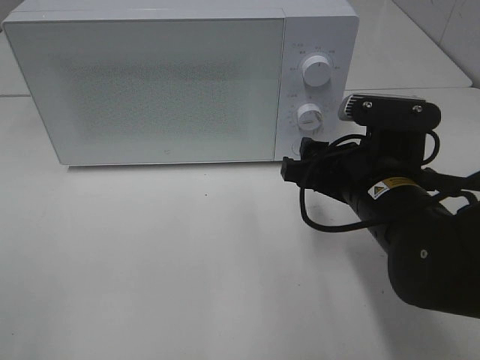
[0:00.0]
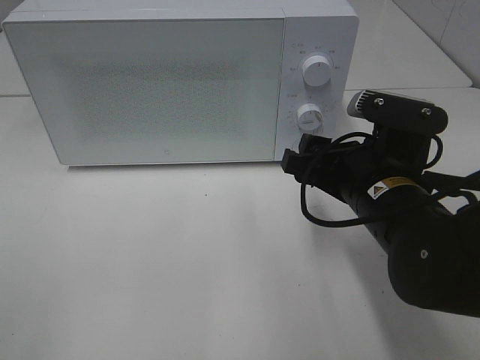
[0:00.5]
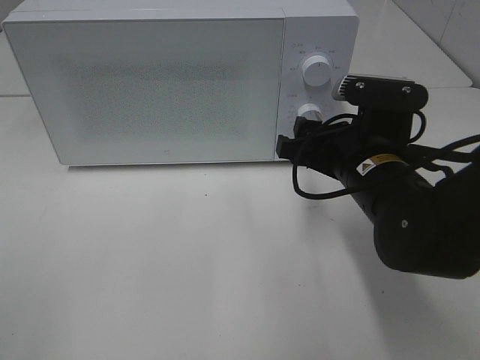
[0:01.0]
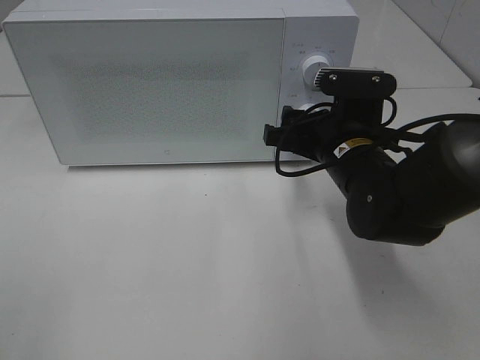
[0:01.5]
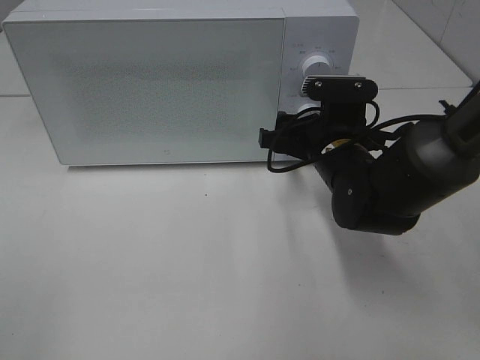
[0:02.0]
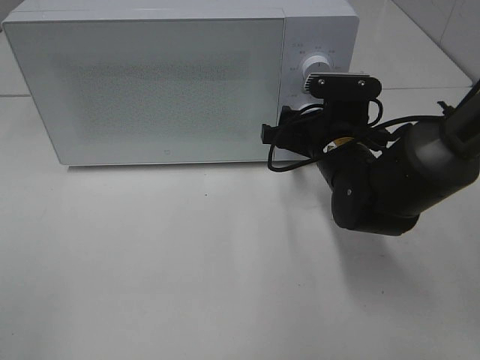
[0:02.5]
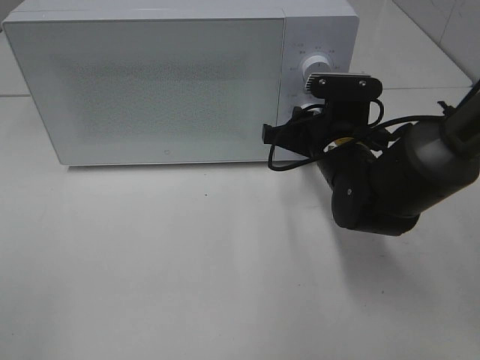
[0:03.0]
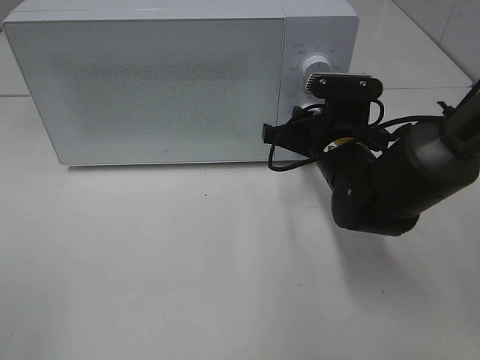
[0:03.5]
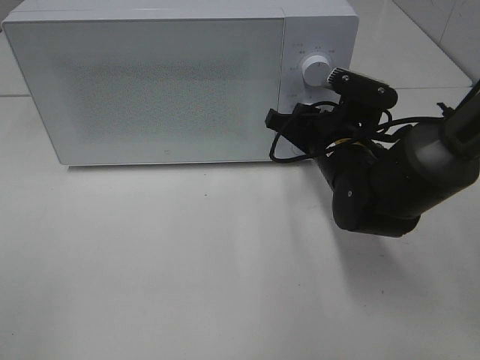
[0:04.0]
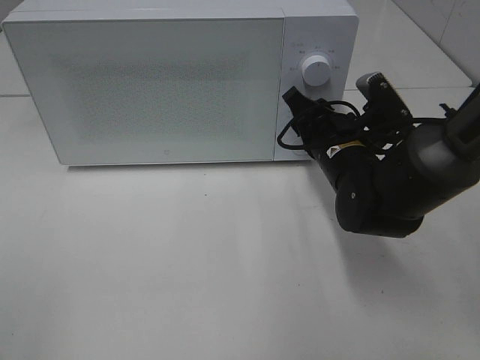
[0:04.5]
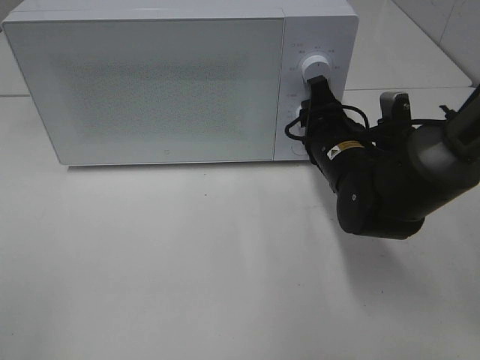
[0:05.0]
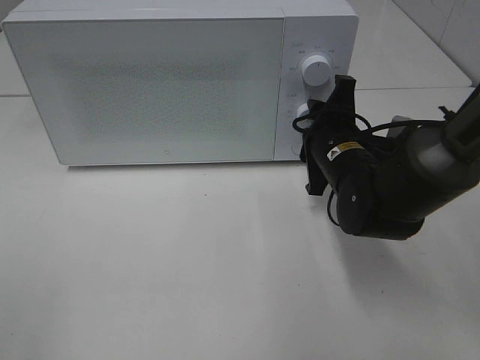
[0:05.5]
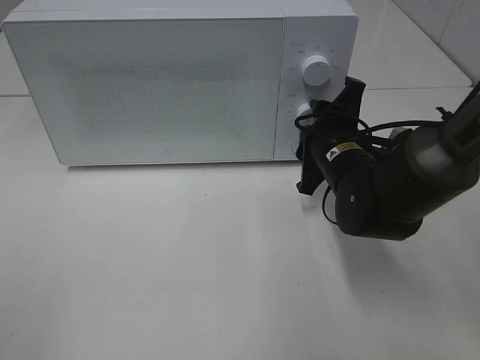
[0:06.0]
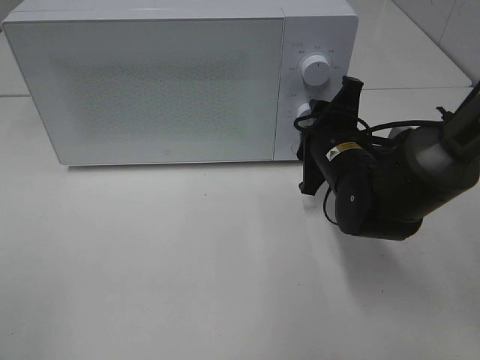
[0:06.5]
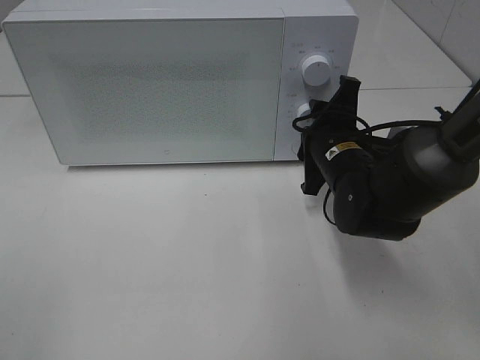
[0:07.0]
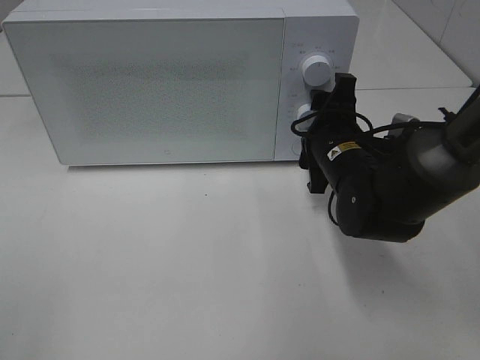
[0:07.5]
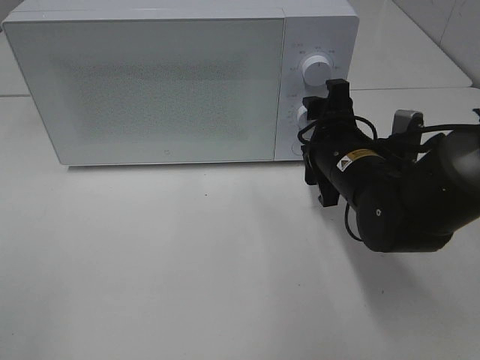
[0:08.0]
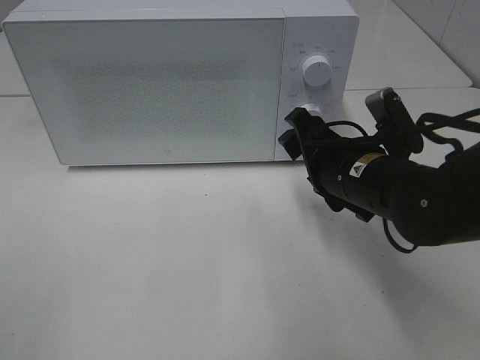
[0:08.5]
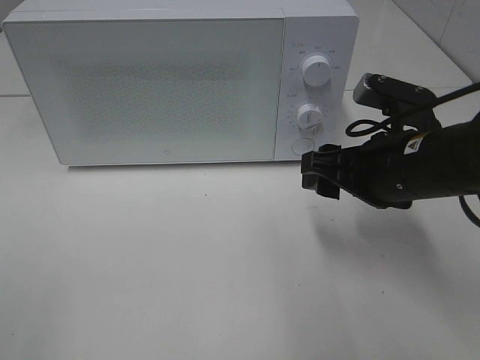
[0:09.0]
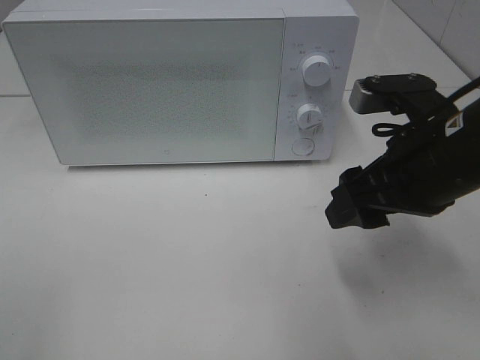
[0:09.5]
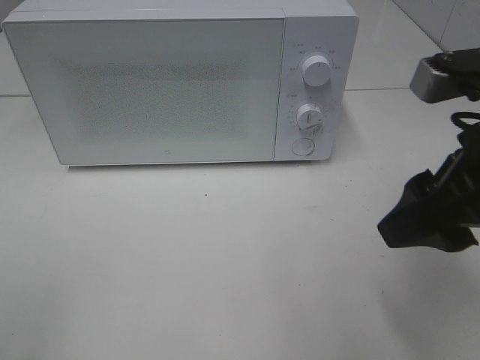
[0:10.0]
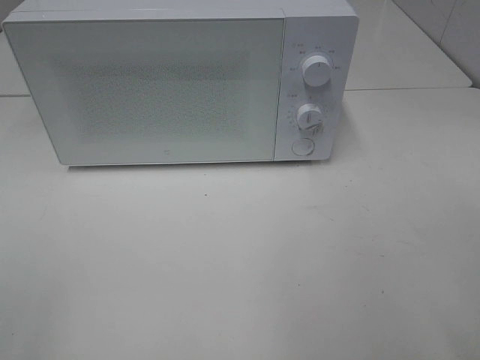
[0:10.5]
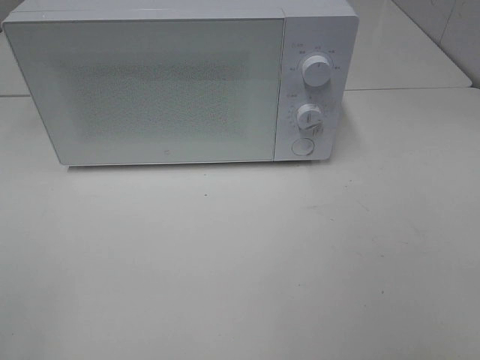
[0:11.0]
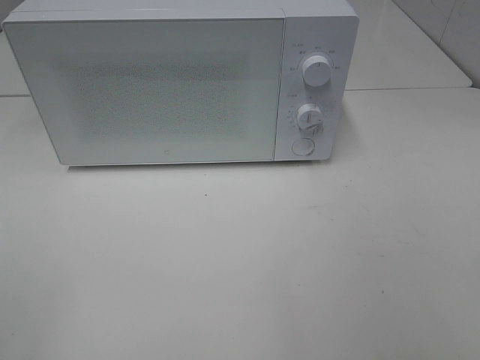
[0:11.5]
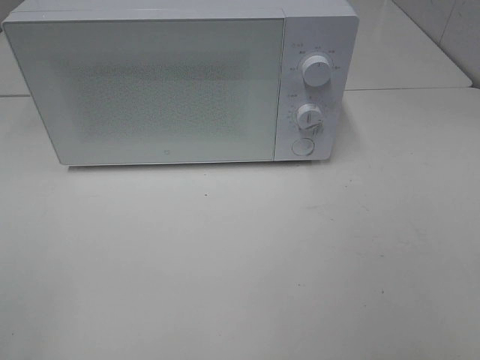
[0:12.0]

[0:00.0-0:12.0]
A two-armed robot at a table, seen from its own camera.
Task of the whole recording: Heat Sandwich.
Step, 0.0 to 8.0 s: Right hand: twist timer button.
0.0 to 2.0 s: The right gripper heads forward, covering approximately 10 cm.
2.0 to 4.0 s: The grippers stay close to where they were, moving slightly.
8.0 to 10.0 s: The right gripper heads upward, backward and to the right, covering some 20 cm.
10.0 to 12.0 s: The right gripper goes approximately 20 cm backward and to the right.

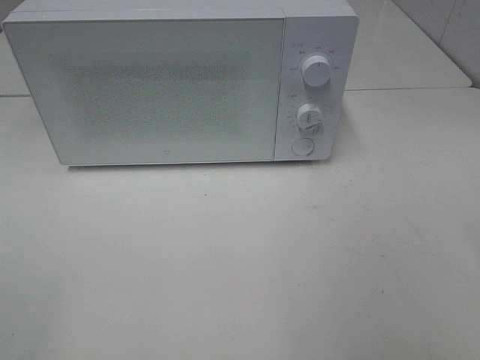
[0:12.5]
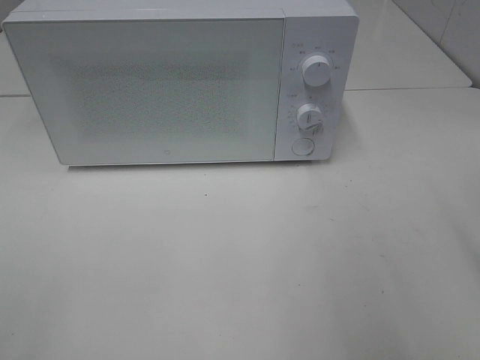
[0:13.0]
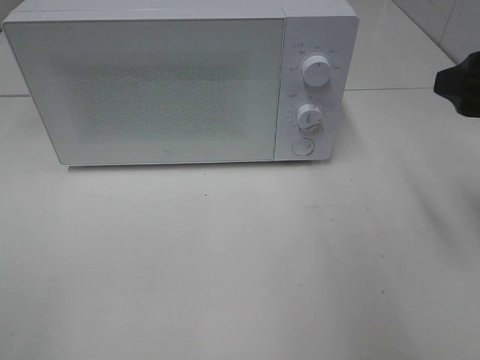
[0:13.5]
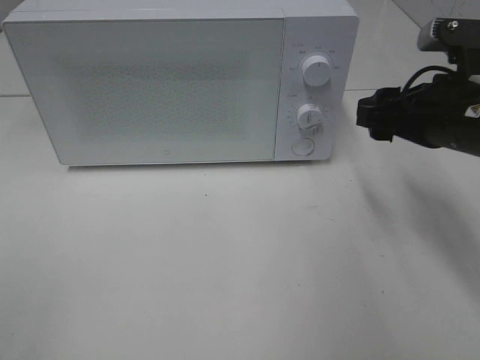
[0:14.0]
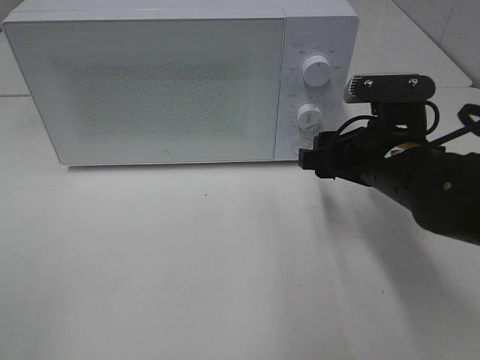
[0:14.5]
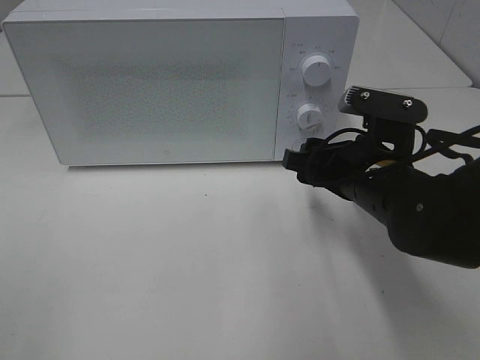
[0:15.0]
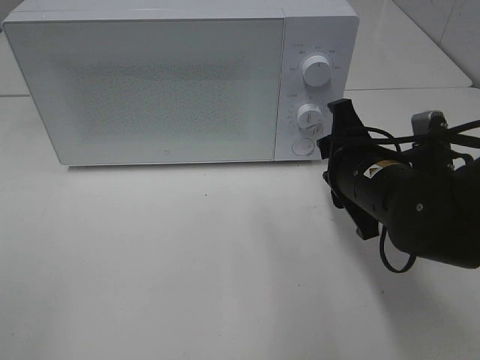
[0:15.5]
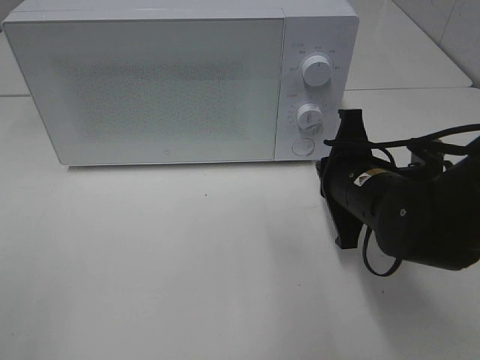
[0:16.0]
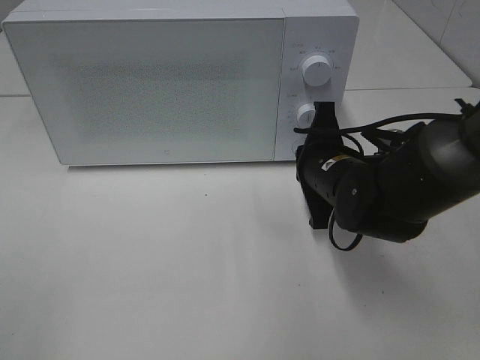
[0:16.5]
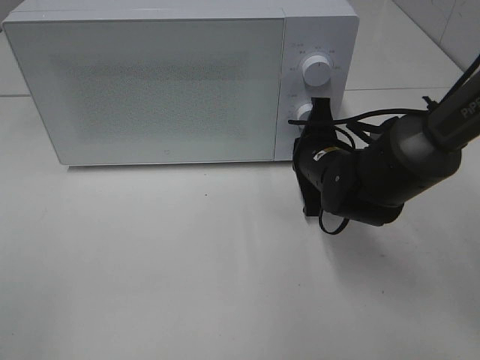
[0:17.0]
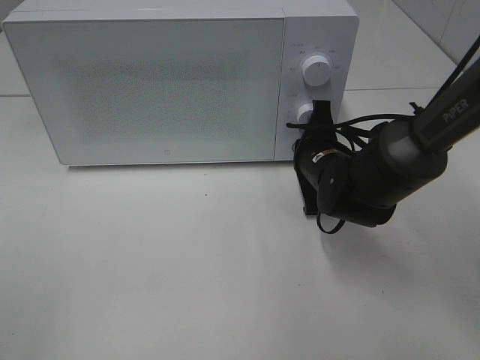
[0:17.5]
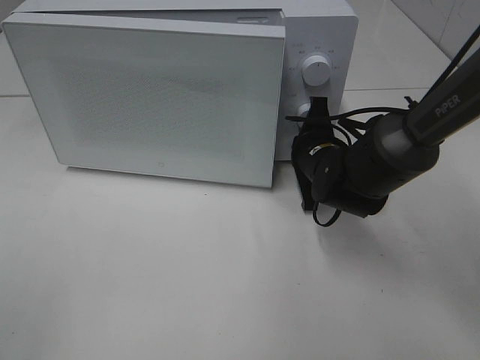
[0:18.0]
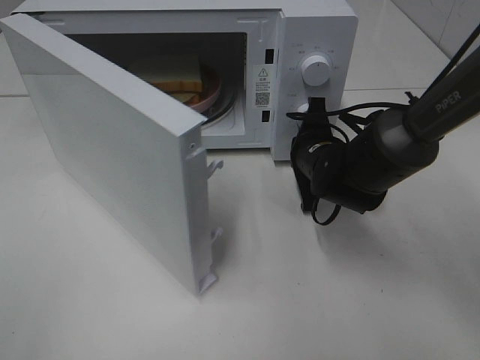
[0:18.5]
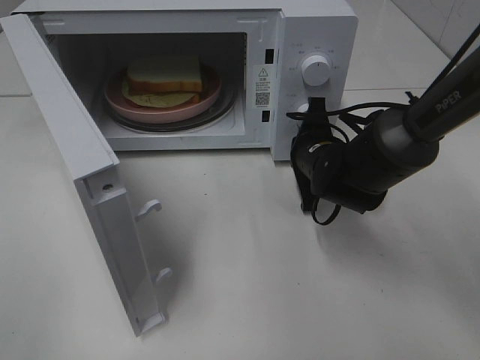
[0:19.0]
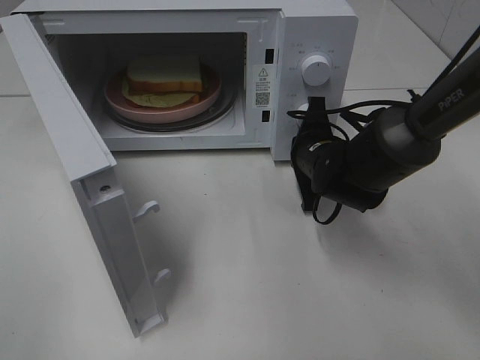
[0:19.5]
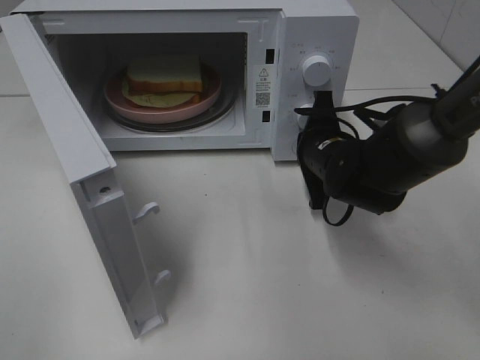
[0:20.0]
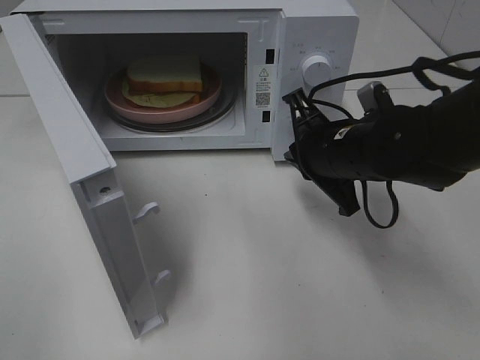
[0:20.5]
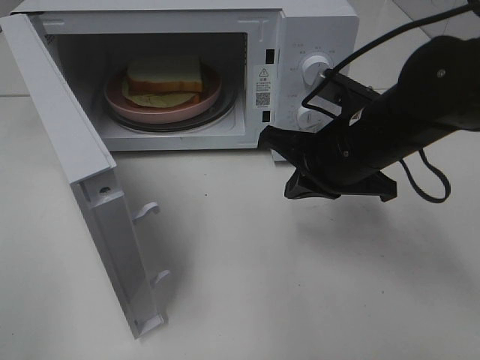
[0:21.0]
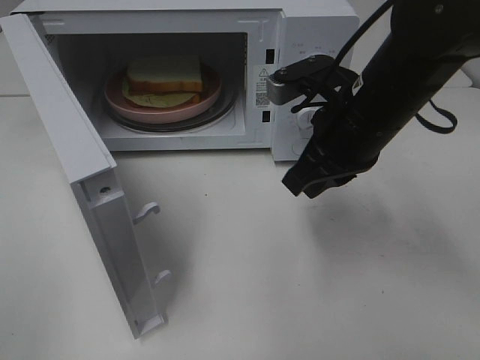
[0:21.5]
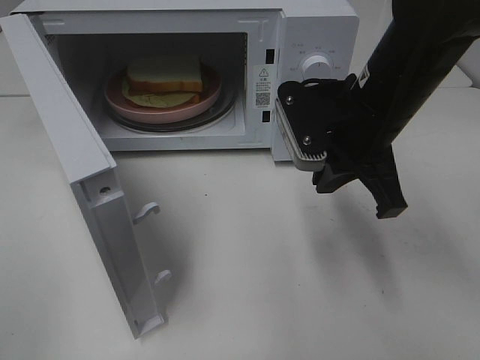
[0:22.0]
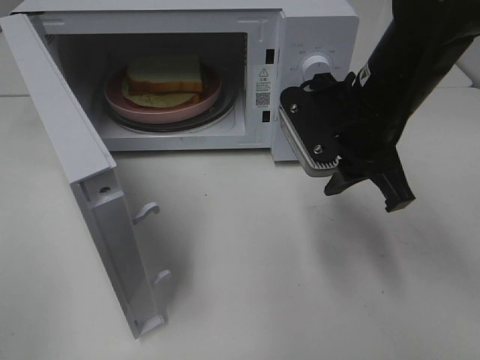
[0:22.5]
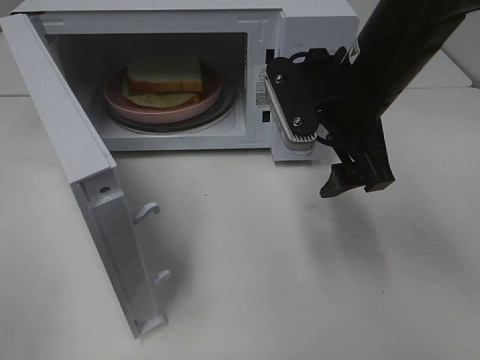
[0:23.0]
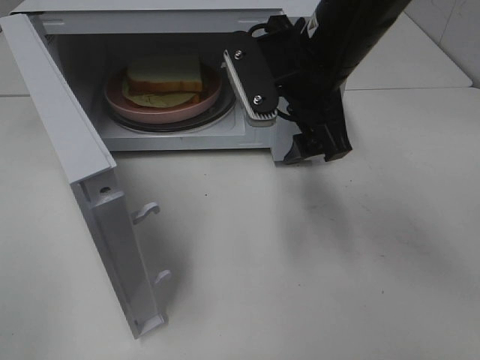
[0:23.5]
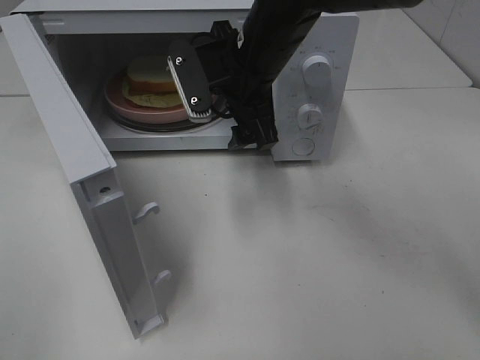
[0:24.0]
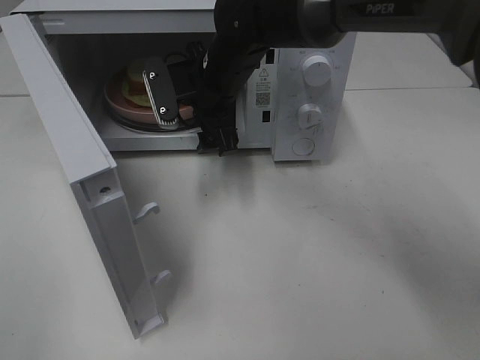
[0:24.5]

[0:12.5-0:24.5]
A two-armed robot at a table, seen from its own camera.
Task of the whole recording: Heat Sandwich.
Step, 12.5 to 20.5 s: Right hand: press the switch.
12.5 to 14.5 s: The right gripper heads forward, downward and to the left, covering approximately 30 cm.
14.5 to 16.5 s: The right gripper changes place by approximately 5 cm, and closes its fingers.
16.5 to 18.5 s: The right gripper is displaced forward by about 5 cm.
18.5 to 20.5 s: The right gripper shifts some 10 cm backward and upward.
20.5 to 22.5 s: The right gripper heads upward, covering roughly 10 cm, and opens.
22.5 to 24.5 s: The right gripper moves to the left and forward, roughly 20 cm, and opens.

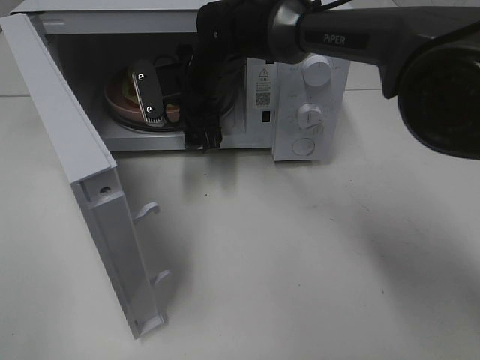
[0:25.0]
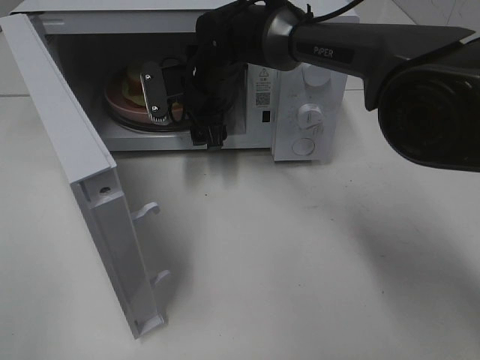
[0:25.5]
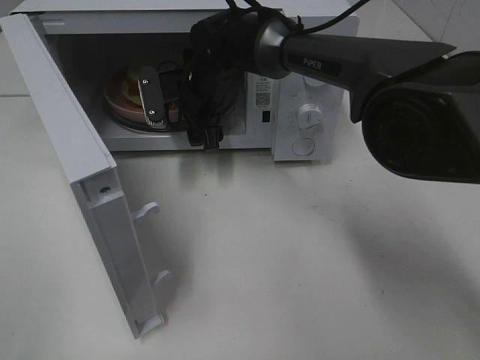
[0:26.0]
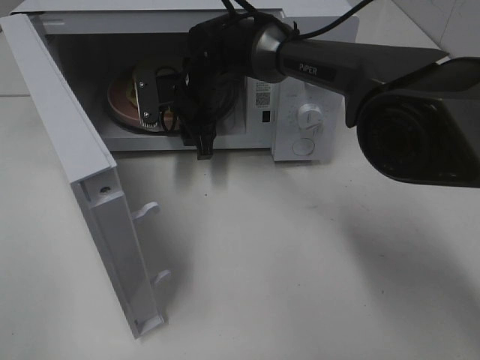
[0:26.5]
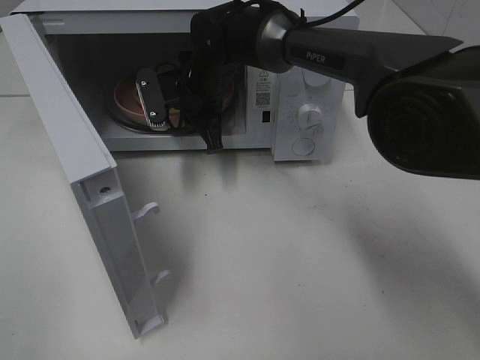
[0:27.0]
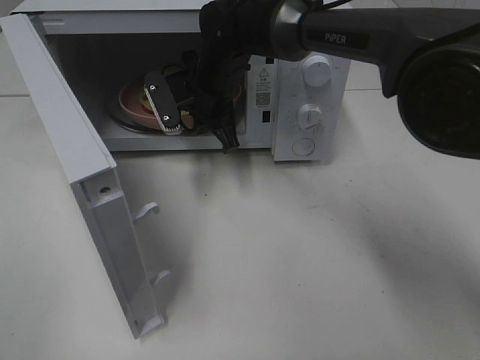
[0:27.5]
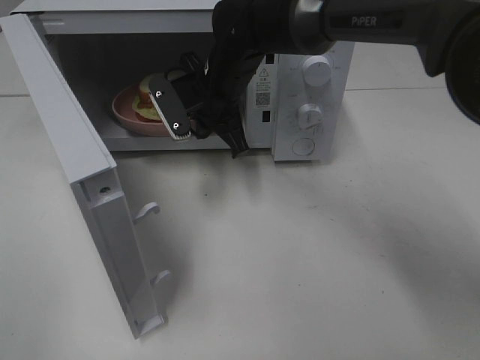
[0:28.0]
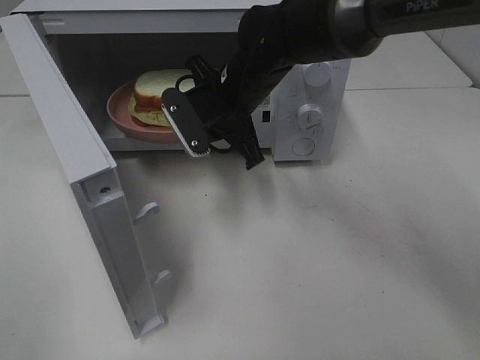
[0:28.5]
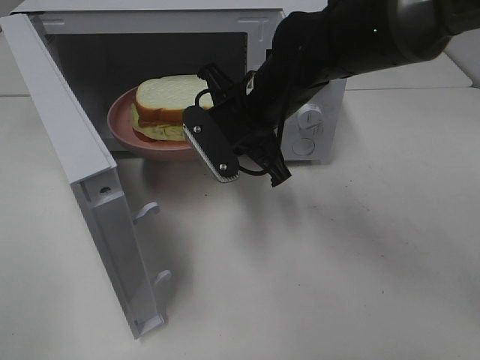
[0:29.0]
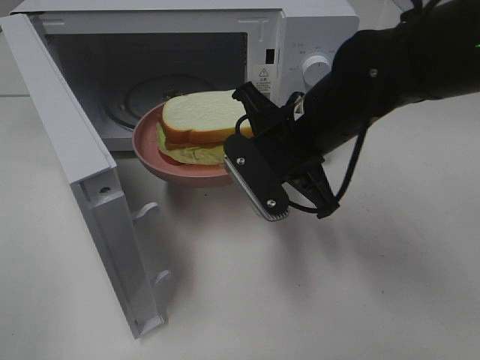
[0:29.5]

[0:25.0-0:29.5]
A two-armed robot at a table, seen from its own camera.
Task of the whole recording: Heat Sandwich.
25.0 to 27.0 s: The right gripper closes up.
27.0 to 29.5 s: The right gripper moves backward and to the right, some 20 cm.
